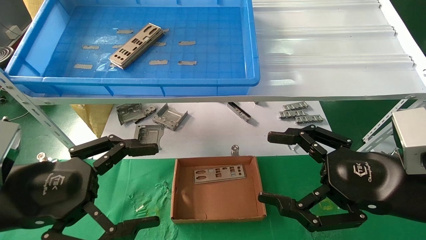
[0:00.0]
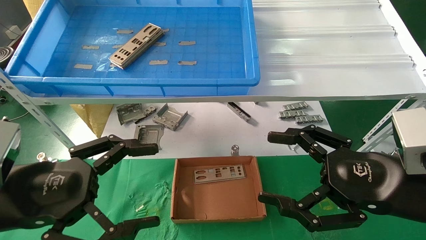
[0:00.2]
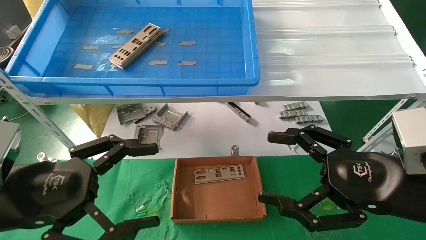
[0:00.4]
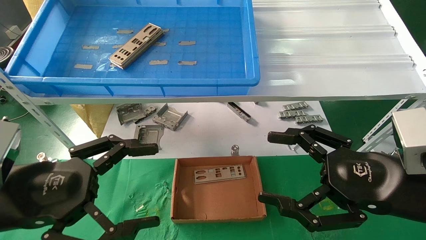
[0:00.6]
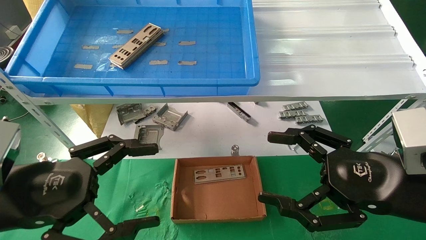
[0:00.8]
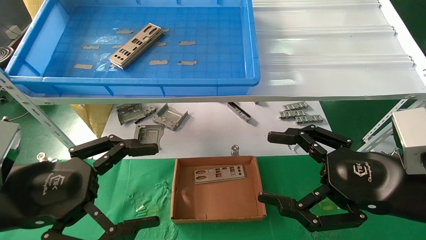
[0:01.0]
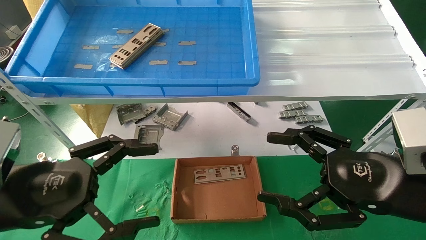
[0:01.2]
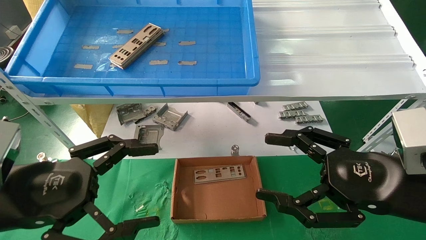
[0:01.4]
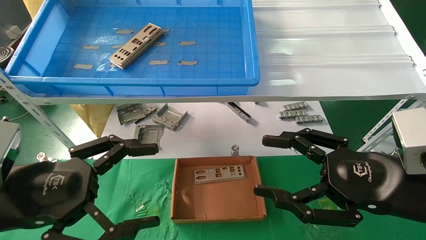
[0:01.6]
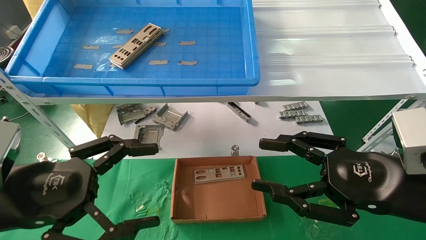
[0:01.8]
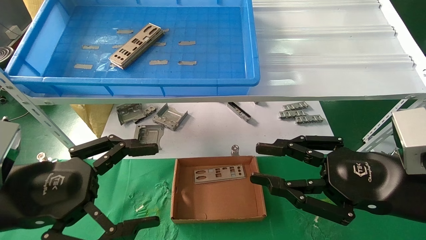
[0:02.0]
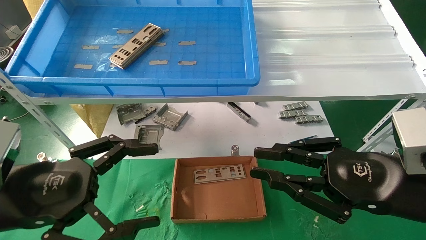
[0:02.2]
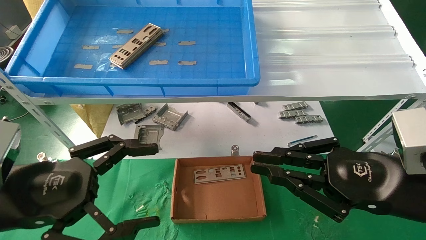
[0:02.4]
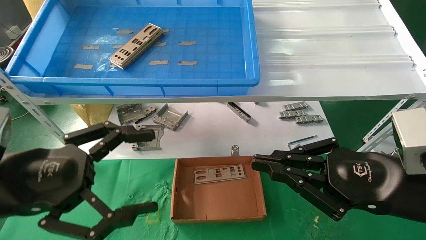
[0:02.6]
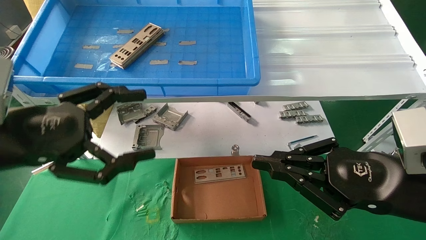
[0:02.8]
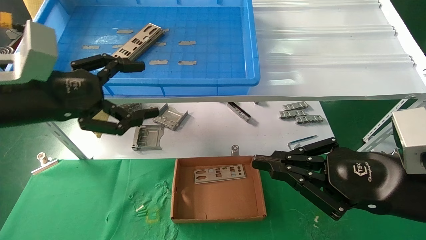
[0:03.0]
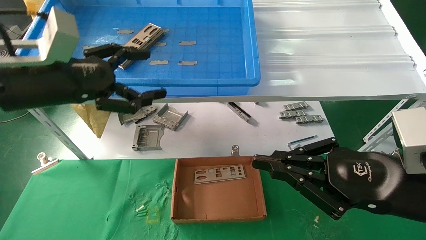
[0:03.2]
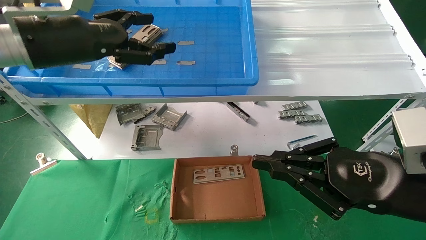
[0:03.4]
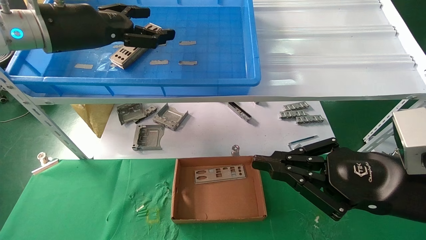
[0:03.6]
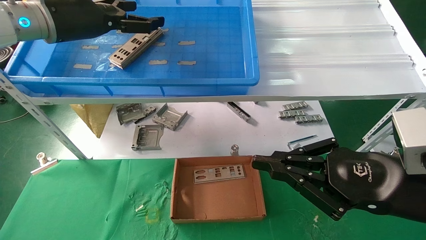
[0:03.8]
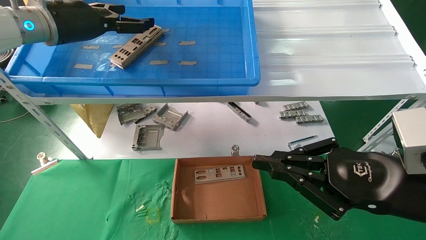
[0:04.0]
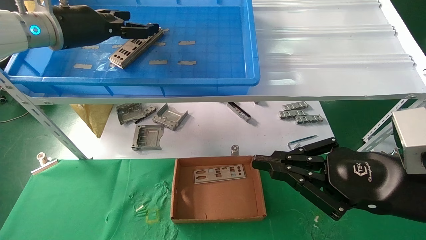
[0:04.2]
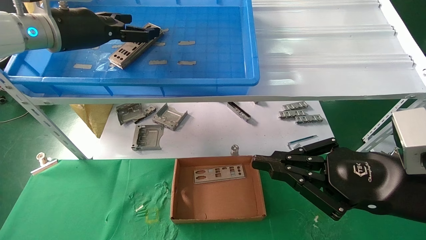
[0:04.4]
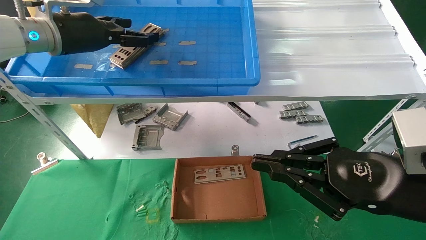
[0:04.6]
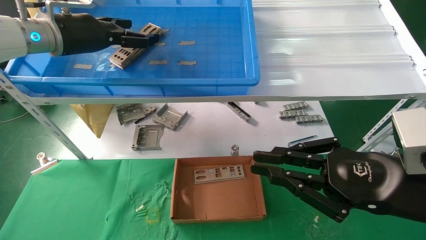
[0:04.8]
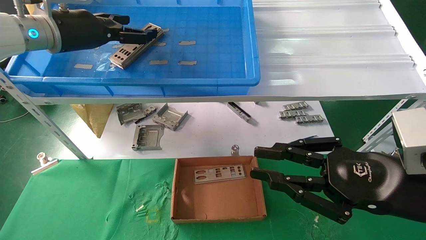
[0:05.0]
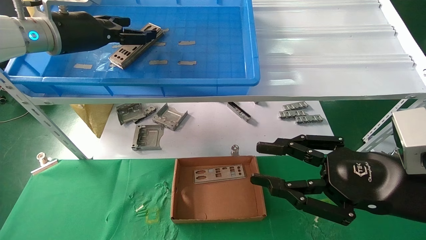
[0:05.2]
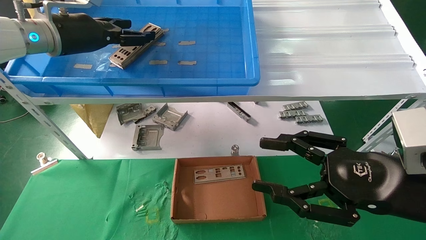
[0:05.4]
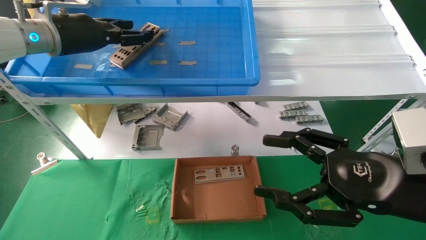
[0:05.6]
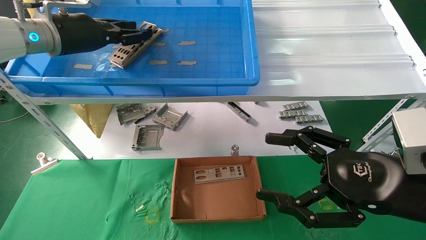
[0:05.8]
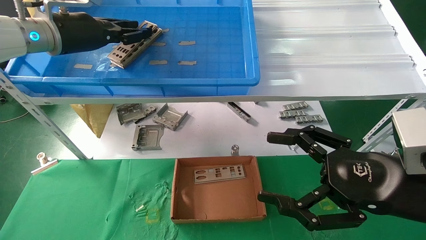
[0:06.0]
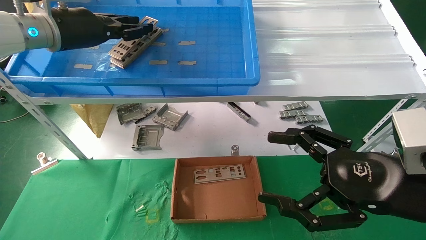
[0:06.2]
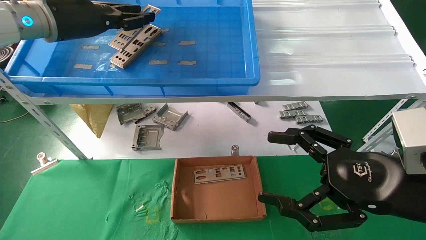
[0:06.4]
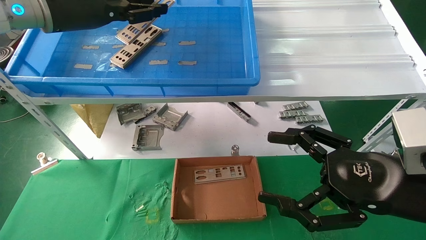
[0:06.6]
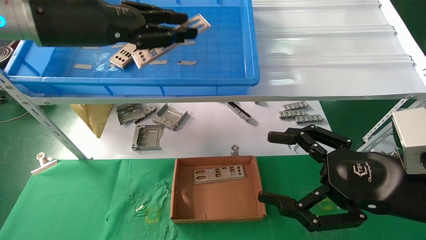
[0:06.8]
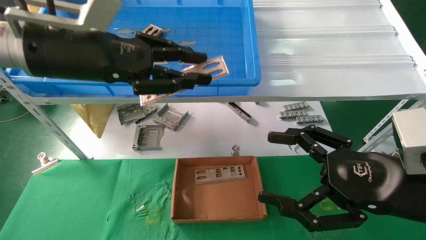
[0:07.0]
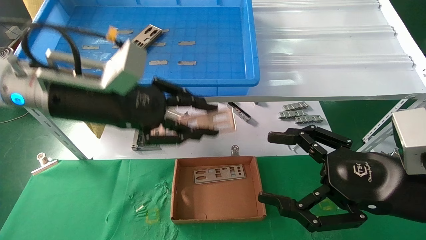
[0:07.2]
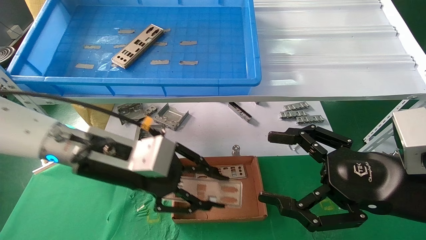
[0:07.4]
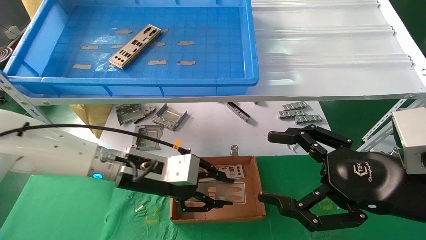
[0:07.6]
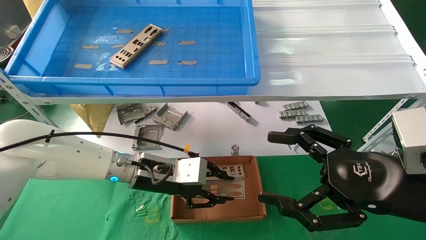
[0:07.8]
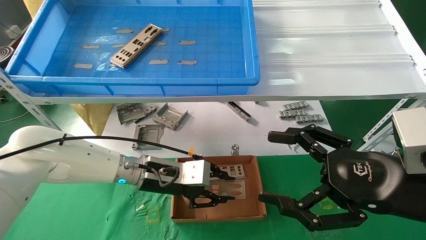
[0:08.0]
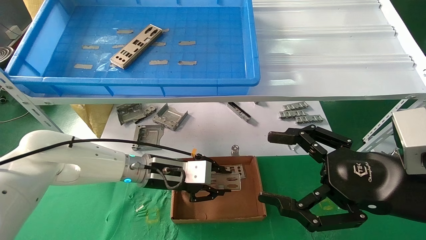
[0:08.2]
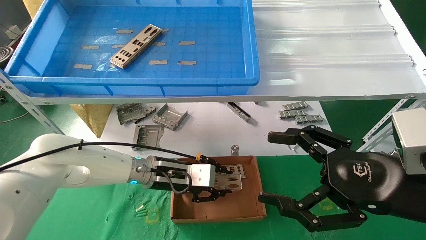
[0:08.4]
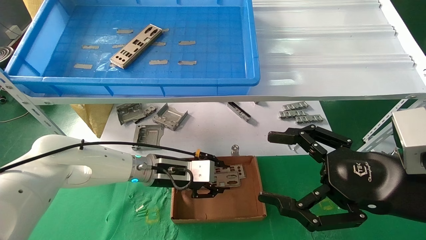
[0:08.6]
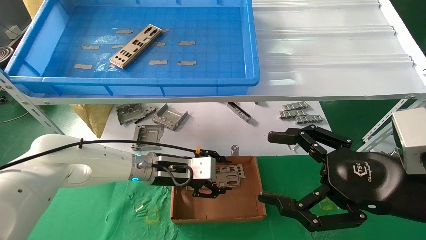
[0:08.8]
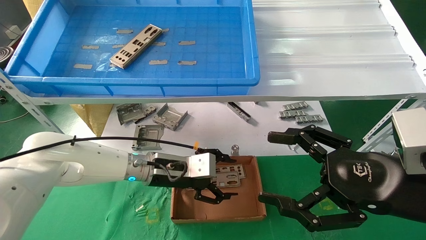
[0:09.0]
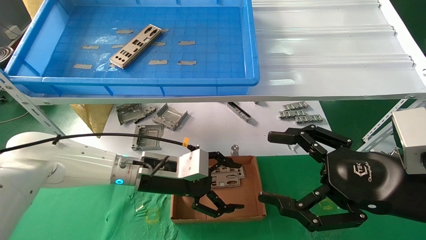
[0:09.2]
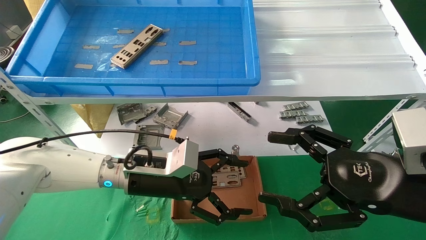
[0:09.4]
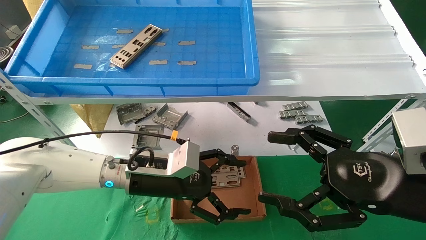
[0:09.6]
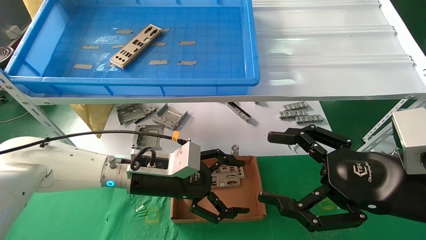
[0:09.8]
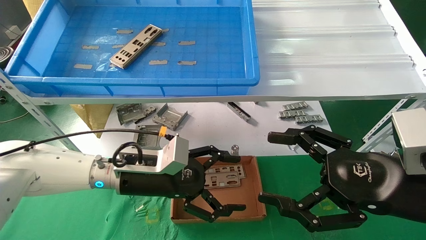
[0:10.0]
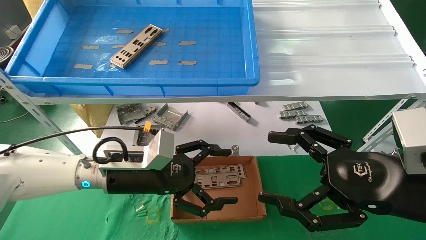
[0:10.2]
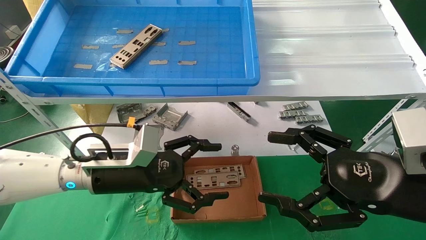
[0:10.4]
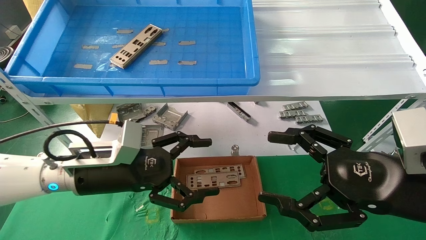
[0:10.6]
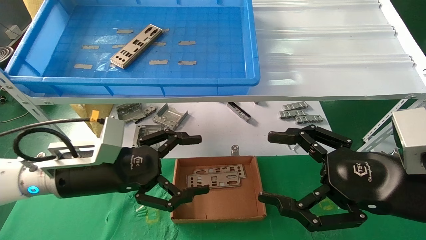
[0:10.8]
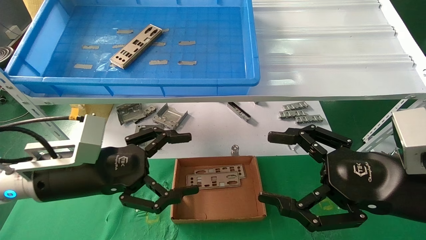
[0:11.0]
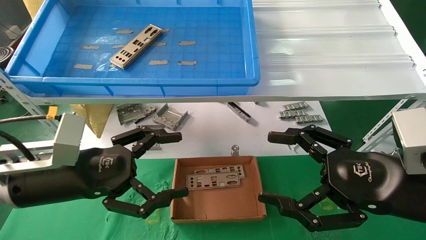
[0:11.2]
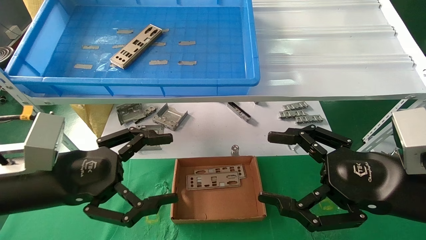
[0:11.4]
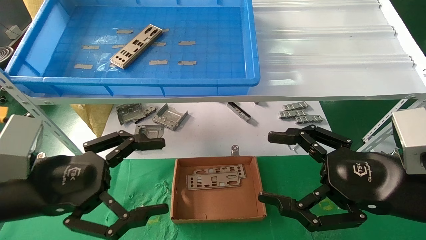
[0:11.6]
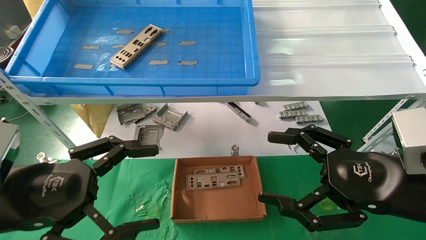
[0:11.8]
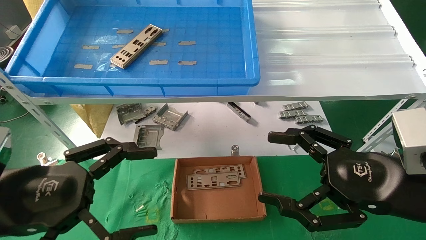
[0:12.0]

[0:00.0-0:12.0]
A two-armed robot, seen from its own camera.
Task of the whole recording: pick up the parts on the tray and put them in the cardboard box.
Step, 0:02.8 to 0:06.0: Pick up the IO bracket from the container box.
Step, 0:06.2 to 0:08.6: Place the IO bracket into the ingredient slot.
0:00.0 to 0:01.6: The two grippers keep their place.
0:01.6 to 0:03.0: The left gripper is displaced upward and forward by roughly 10 cm. The right gripper closes.
0:03.0 to 0:04.4: The left gripper travels forward and upward by about 20 cm.
0:04.4 to 0:06.0: The right gripper opens up. The left gripper closes up.
0:06.0 to 0:07.6: The left gripper goes approximately 25 cm downward and to the right.
0:07.6 to 0:09.0: The left gripper heads downward, covering approximately 5 cm, and opens up.
0:09.0 to 0:10.4: The left gripper goes approximately 10 cm backward and to the left, and opens its fingers.
0:10.4 to 0:12.0: The left gripper goes some 15 cm backward and to the left.

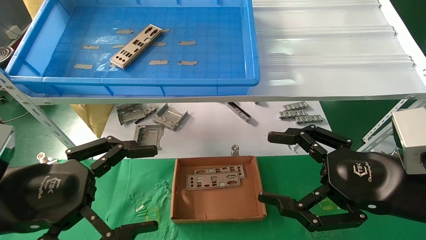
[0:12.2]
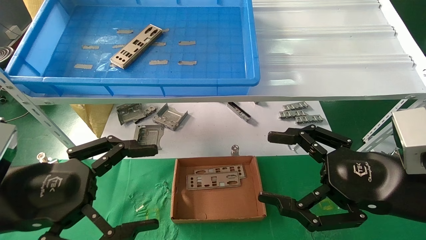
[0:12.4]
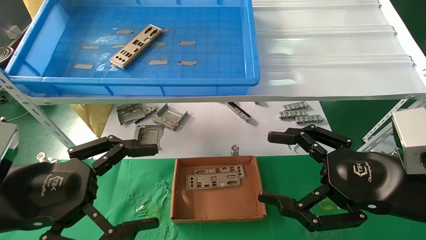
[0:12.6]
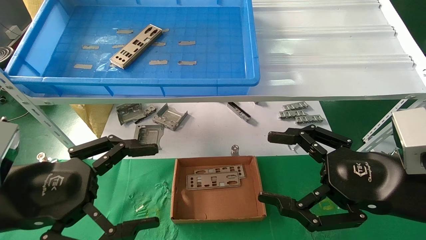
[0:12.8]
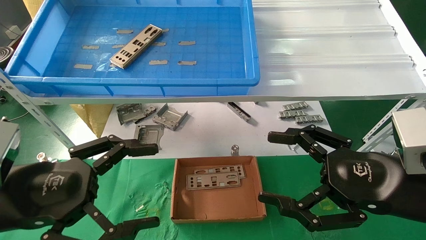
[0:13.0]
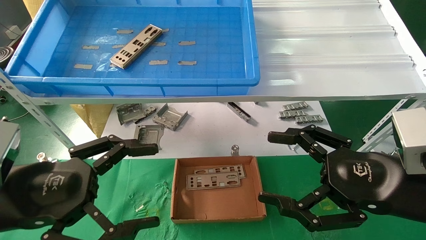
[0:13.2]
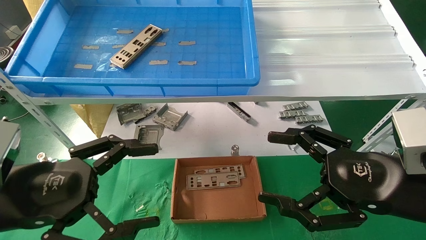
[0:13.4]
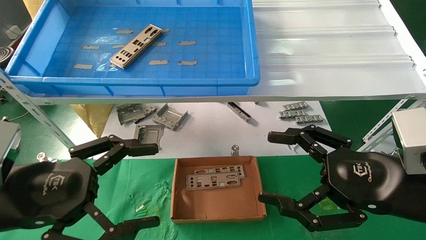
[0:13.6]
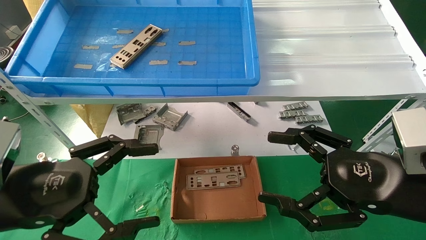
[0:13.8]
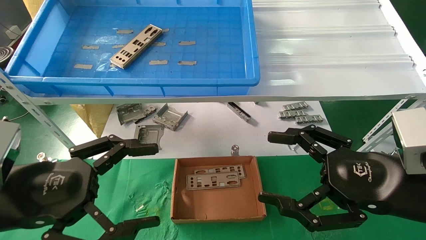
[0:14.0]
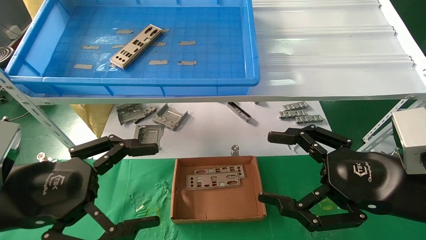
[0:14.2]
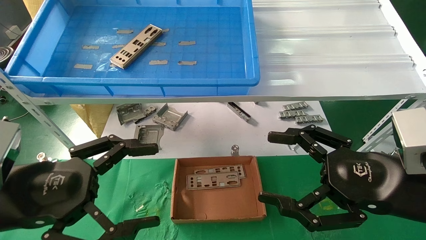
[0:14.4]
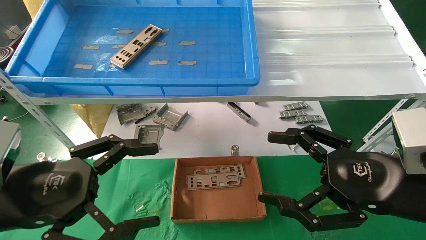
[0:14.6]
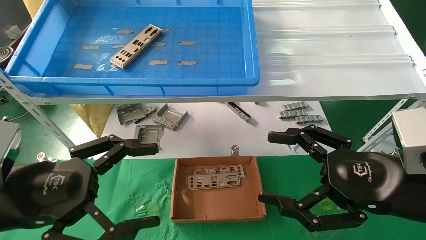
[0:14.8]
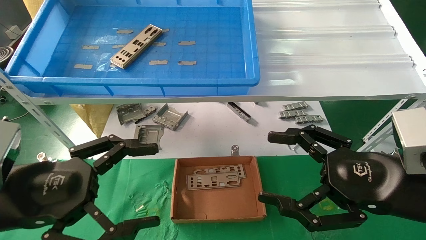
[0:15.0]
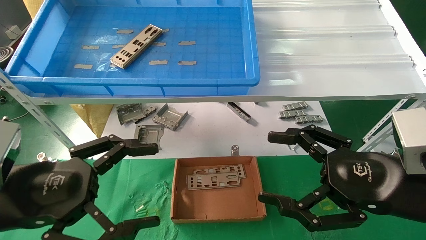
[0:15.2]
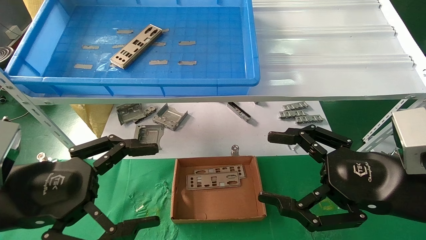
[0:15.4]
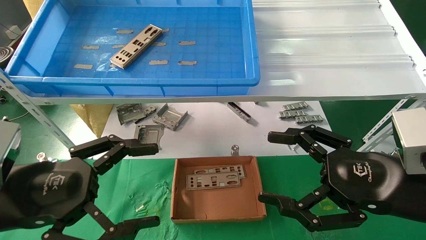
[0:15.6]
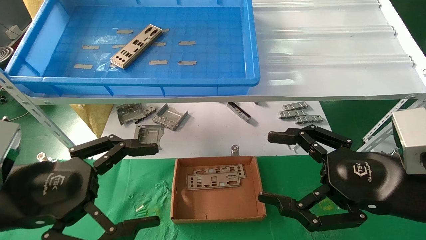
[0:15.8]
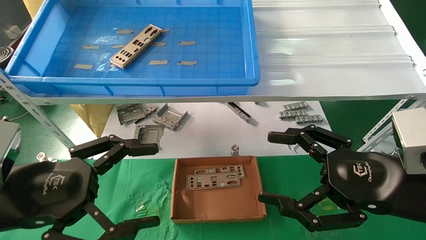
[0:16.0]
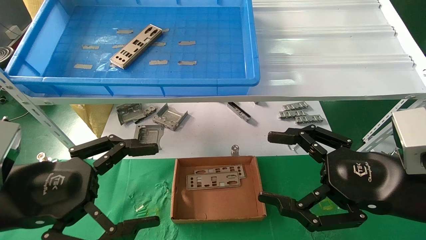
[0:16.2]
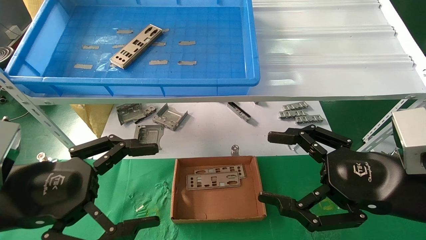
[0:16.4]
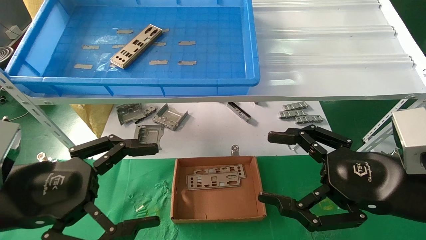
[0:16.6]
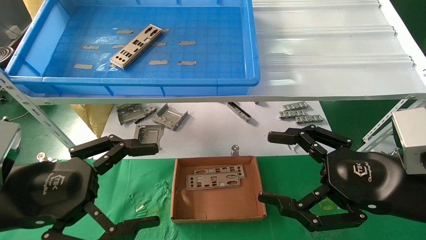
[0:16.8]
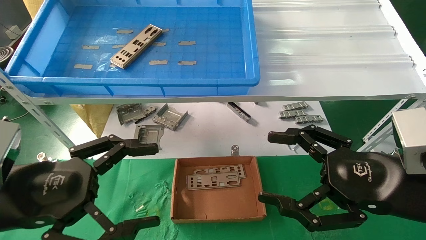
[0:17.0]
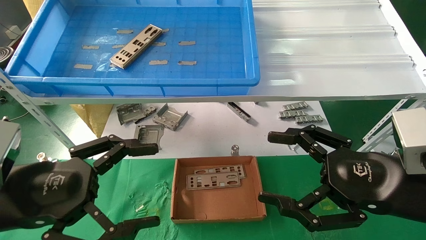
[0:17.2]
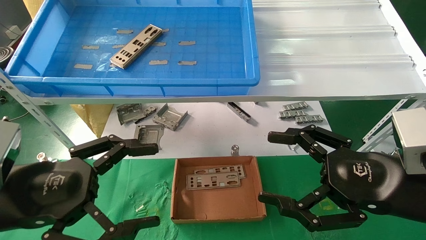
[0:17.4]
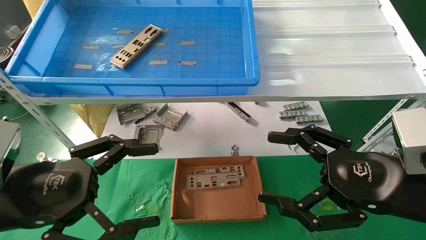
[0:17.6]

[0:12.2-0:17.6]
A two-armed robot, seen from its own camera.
Task of the whole recording: pick up the parts on the tray and put them in the cardboard box.
0:12.2 to 0:17.6: Both grippers stay about where they are.
